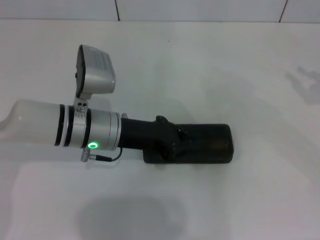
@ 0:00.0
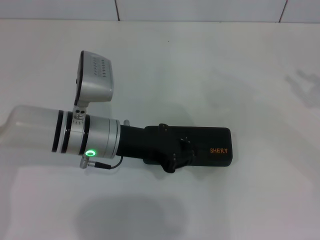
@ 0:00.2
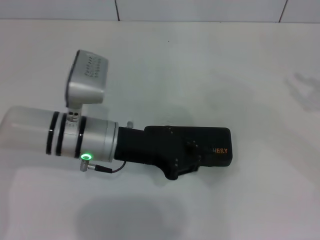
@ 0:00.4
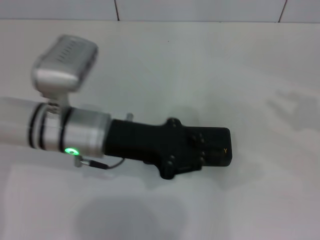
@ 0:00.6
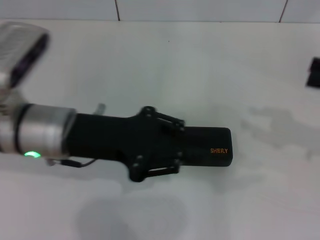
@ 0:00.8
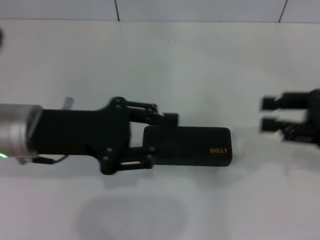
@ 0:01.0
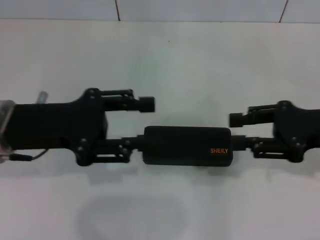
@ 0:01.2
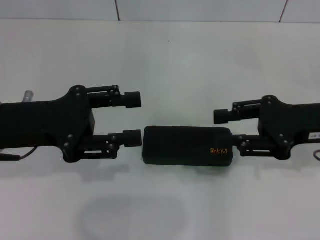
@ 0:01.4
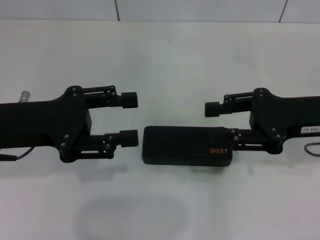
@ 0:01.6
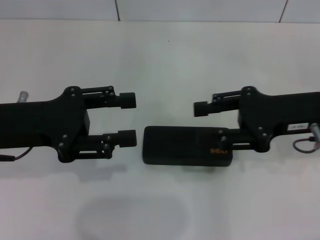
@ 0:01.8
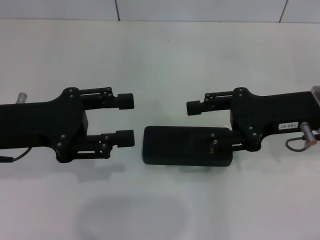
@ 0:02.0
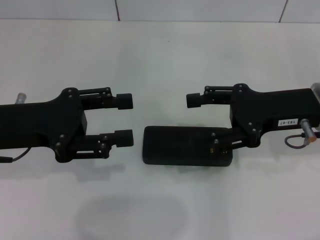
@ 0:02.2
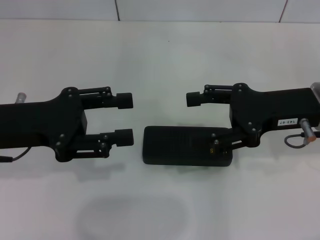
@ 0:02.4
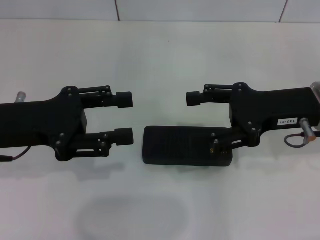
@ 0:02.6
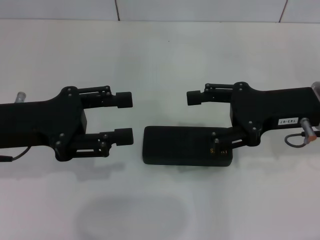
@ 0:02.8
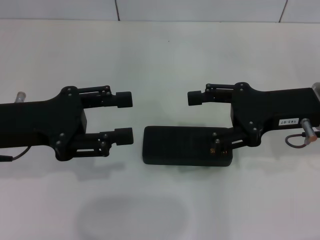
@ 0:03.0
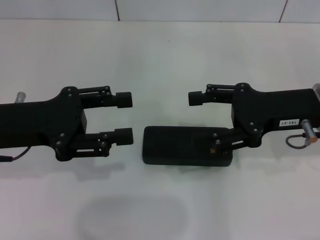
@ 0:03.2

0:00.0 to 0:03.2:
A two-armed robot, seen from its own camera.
0:00.0 to 0:01.6: The left gripper goes approximately 15 cm to the left, upward and backward, and opens. The right gripper goes approximately 15 cm to the left.
0:01.6 to 0:03.2: The right gripper opens up.
